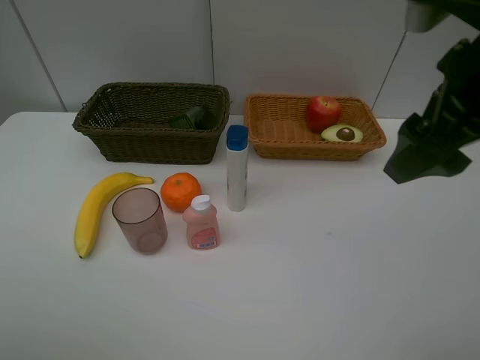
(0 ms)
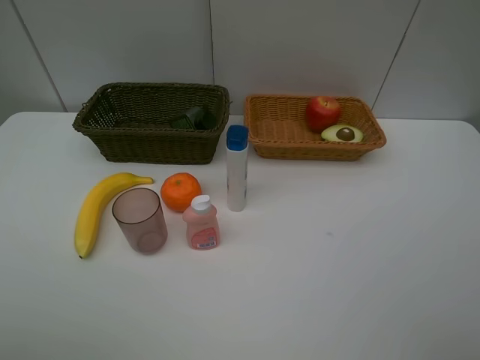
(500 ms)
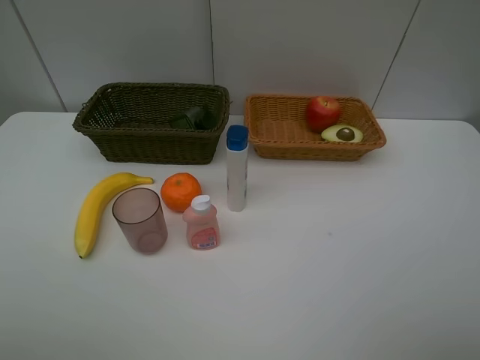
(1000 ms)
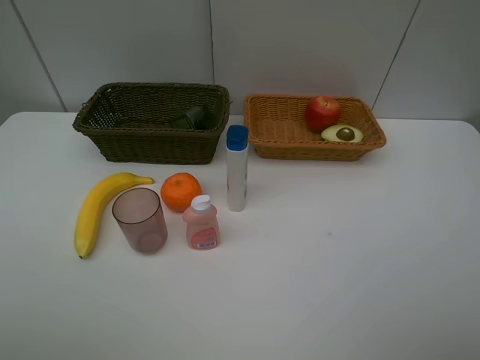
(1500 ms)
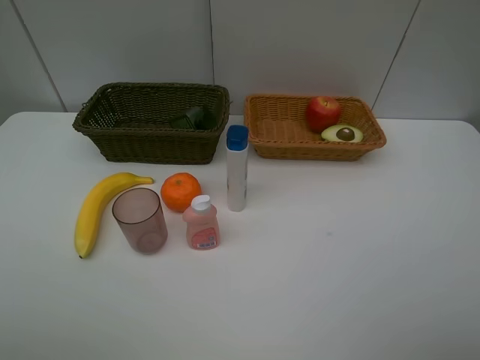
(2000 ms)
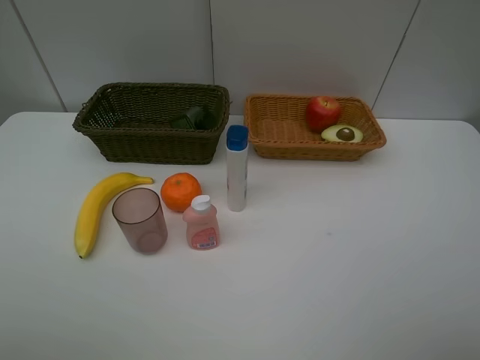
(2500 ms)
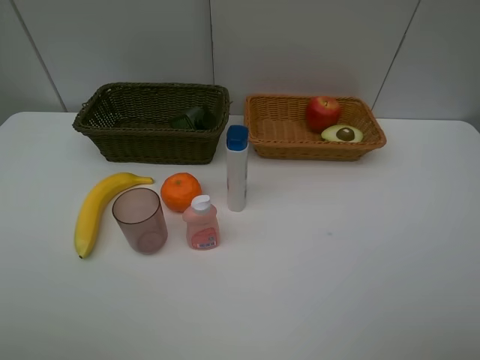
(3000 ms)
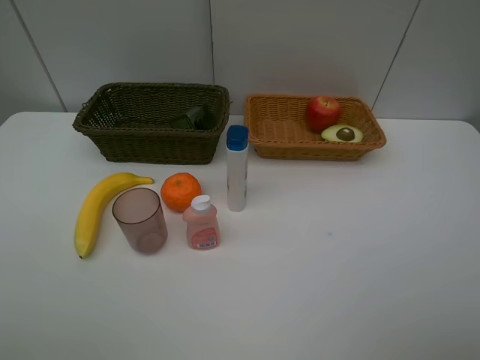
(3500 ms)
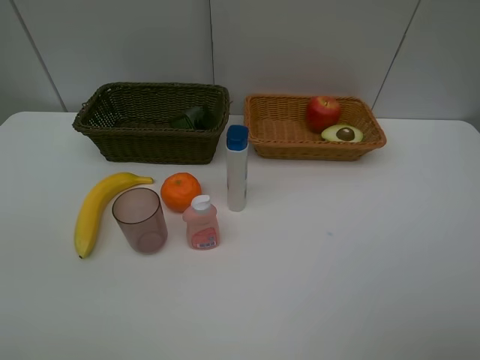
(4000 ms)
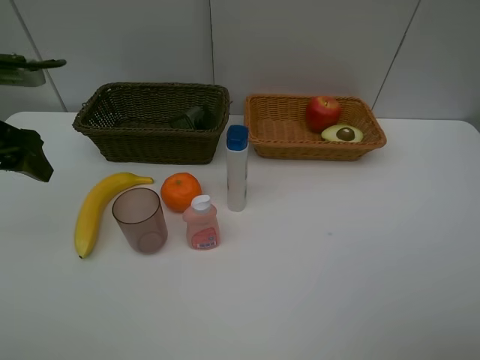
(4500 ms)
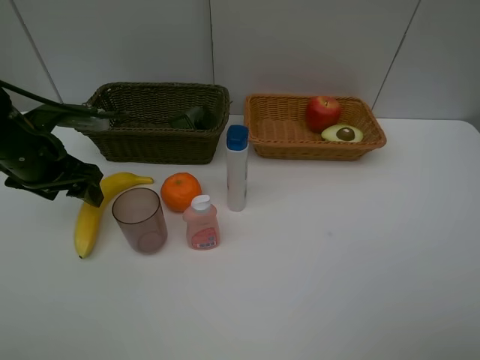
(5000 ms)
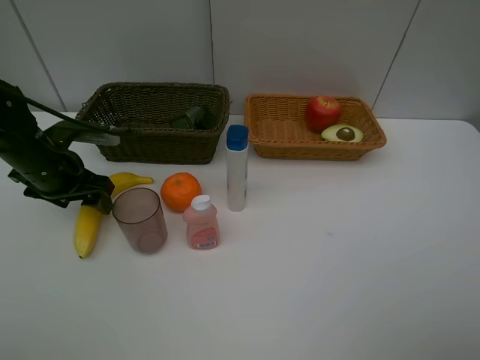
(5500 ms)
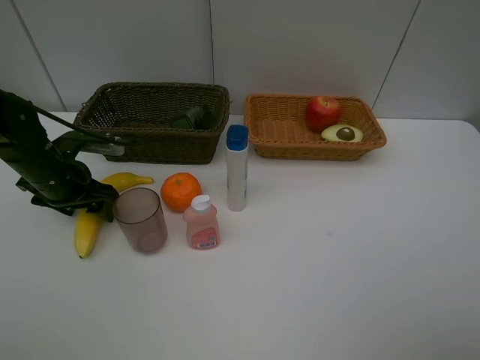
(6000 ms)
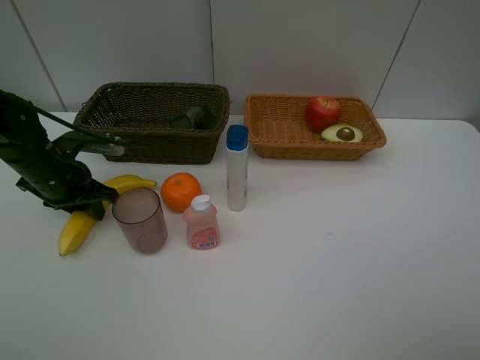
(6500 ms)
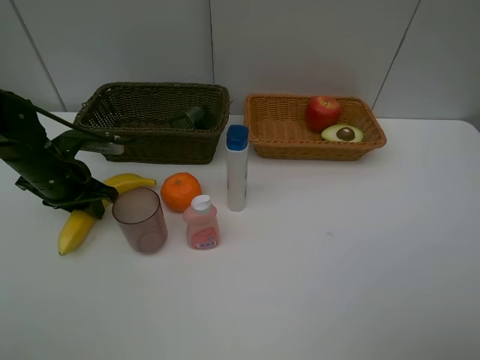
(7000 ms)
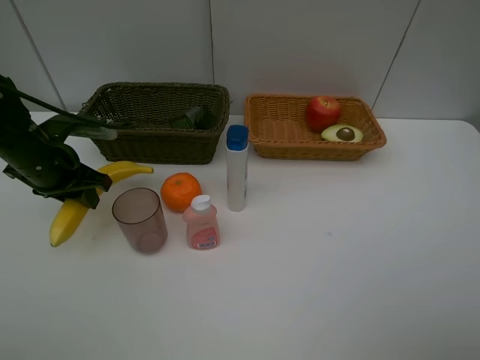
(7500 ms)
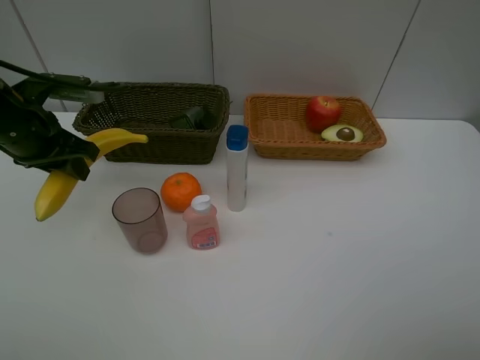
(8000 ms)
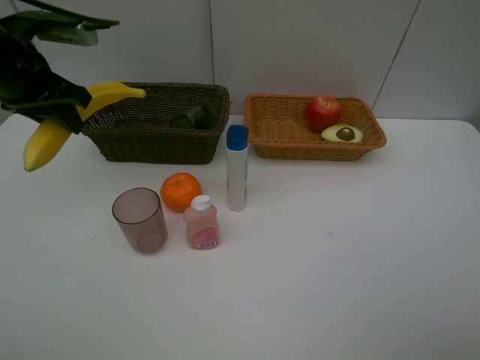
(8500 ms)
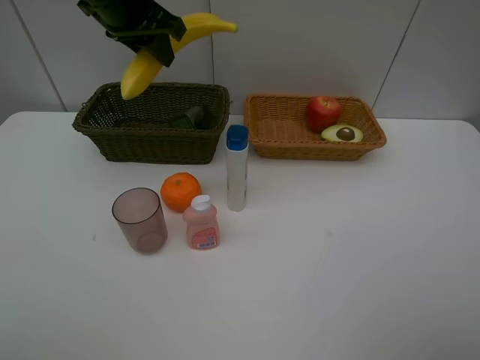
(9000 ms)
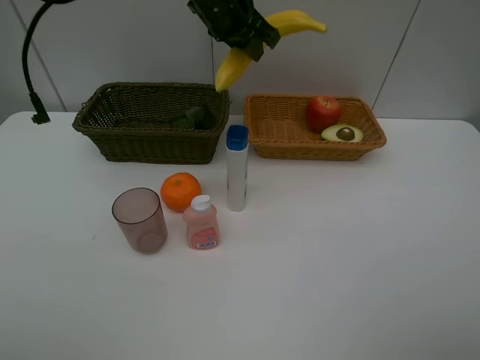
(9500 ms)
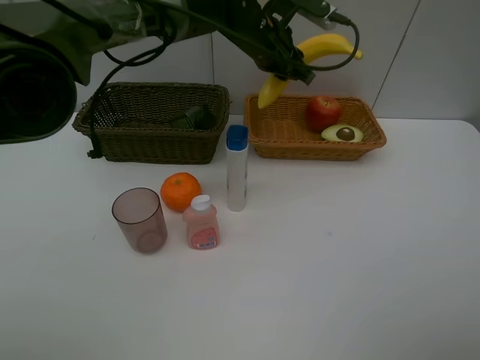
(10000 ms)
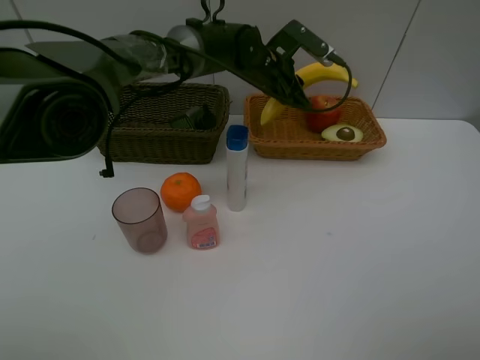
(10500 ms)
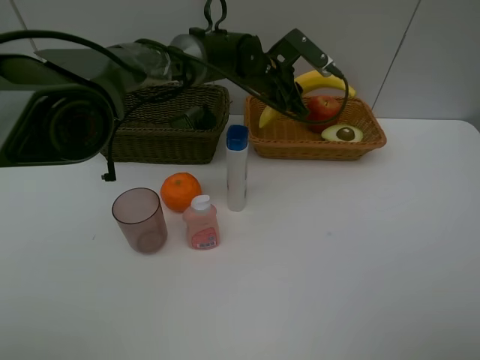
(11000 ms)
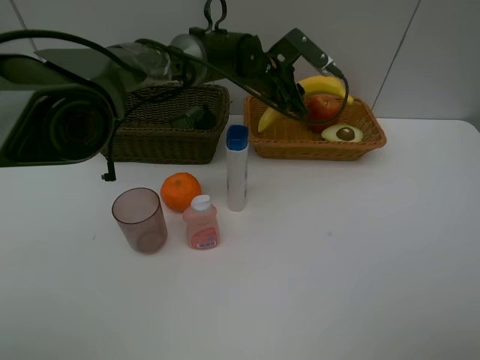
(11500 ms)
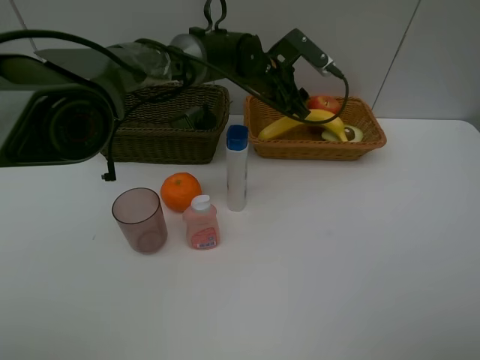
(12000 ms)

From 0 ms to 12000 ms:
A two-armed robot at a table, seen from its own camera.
Task of the whole recording: Place multiple objects separately in different baskets.
Step, from 0 ms to 7500 ms: Pick up banana with left gripper.
From 0 ms to 2000 ms: The right gripper is displaced backward and to the right by roughly 20 cm.
From 4000 ms to 6000 ms: The left gripper travels downward and forward by approximately 25 cm.
From 6000 ms to 8000 ms: The left gripper is displaced upward by some 10 cm, and closes its fingers.
From 8000 ms to 10000 ms: The left gripper is displaced to the right and forward by some 35 cm.
From 10000 ms to 12000 ms: The left gripper moves downward, roughly 5 cm, and opens its fingers.

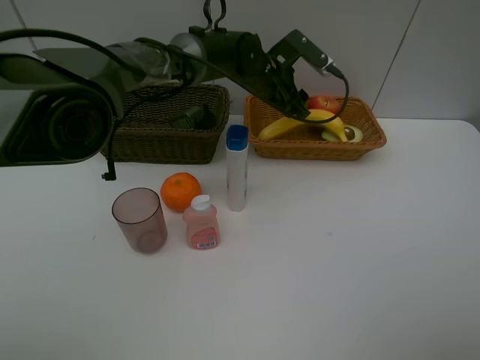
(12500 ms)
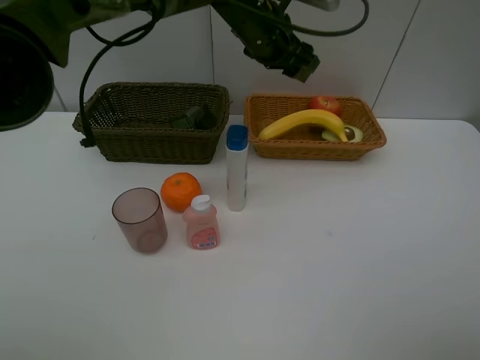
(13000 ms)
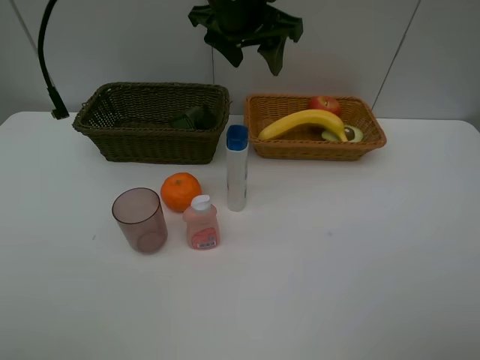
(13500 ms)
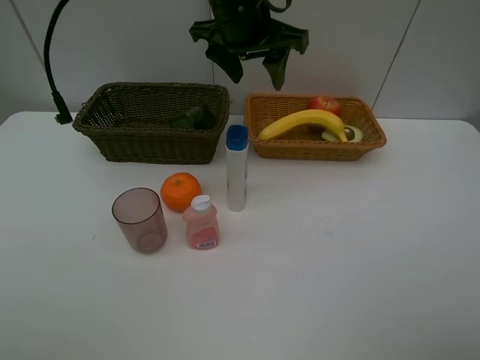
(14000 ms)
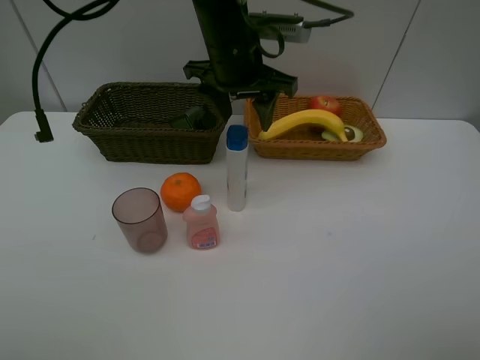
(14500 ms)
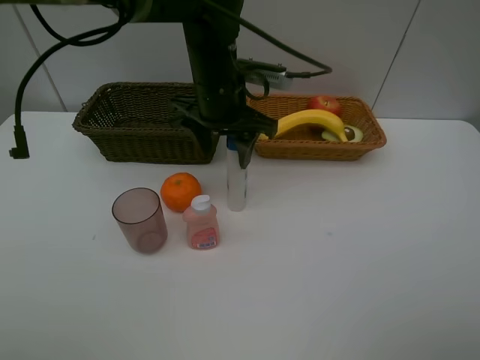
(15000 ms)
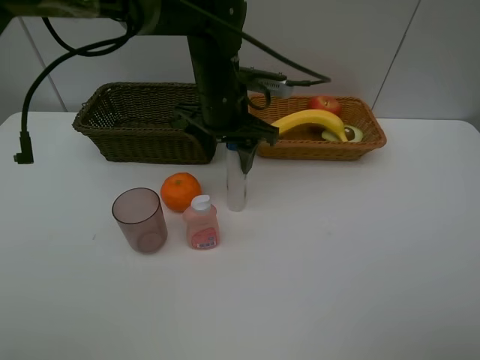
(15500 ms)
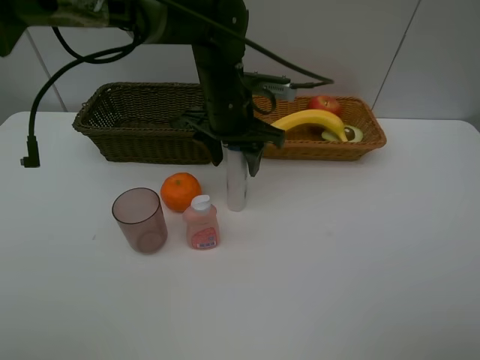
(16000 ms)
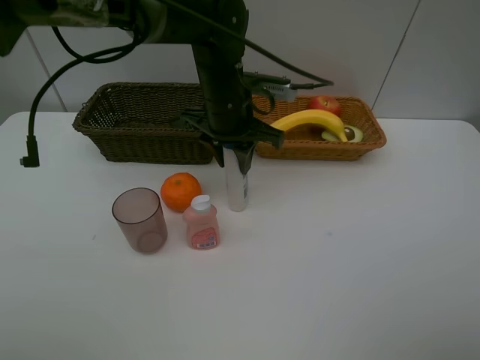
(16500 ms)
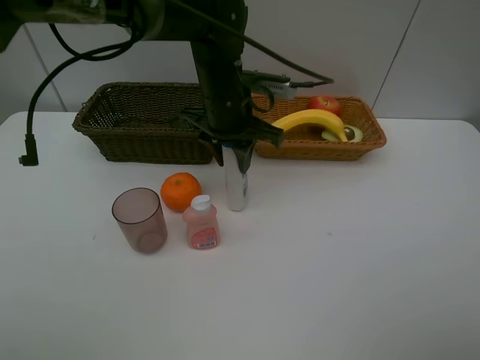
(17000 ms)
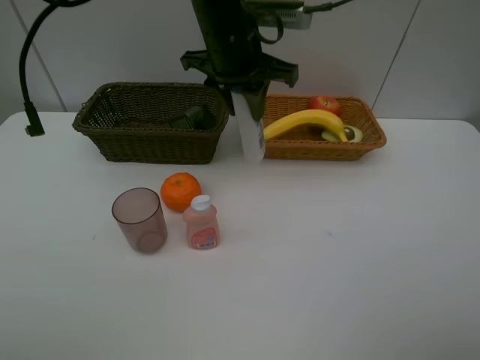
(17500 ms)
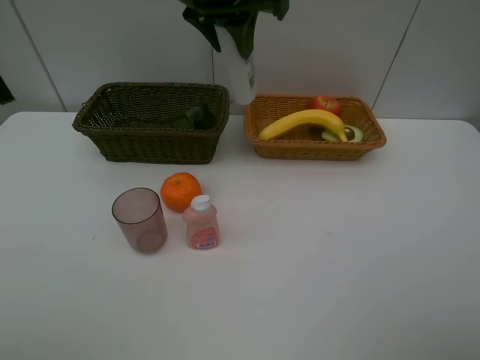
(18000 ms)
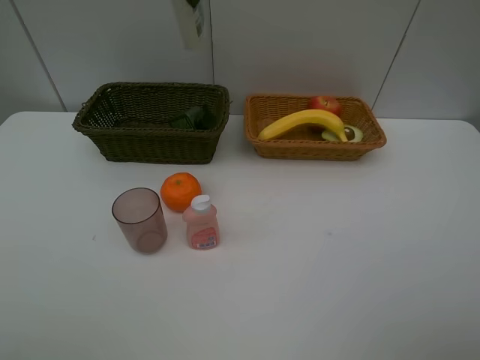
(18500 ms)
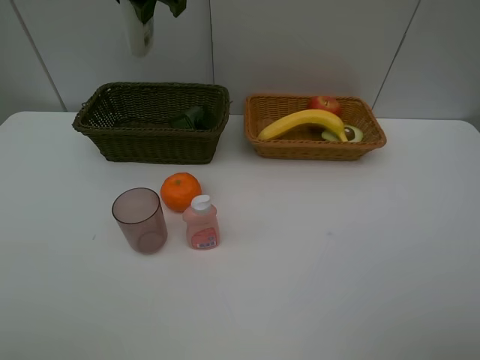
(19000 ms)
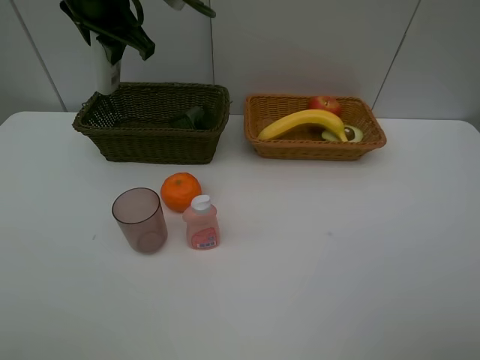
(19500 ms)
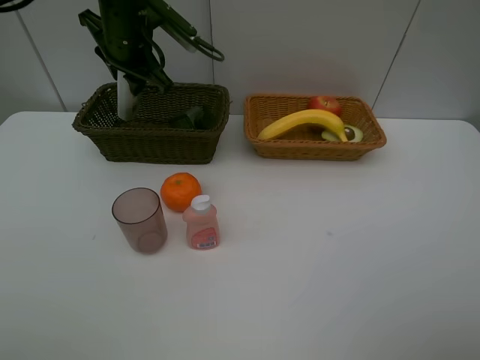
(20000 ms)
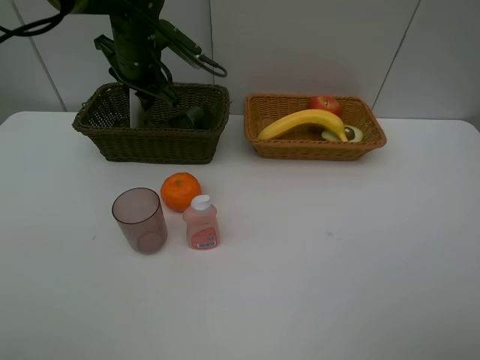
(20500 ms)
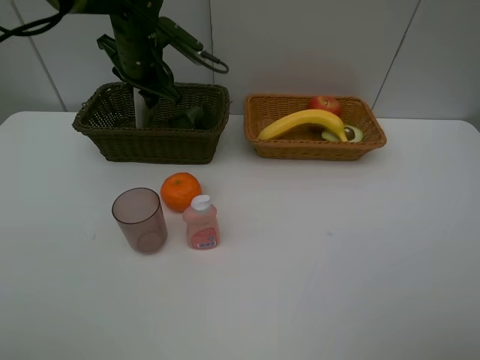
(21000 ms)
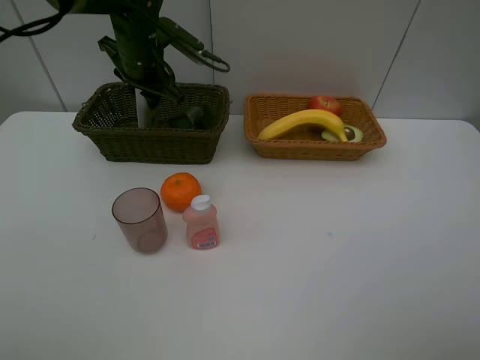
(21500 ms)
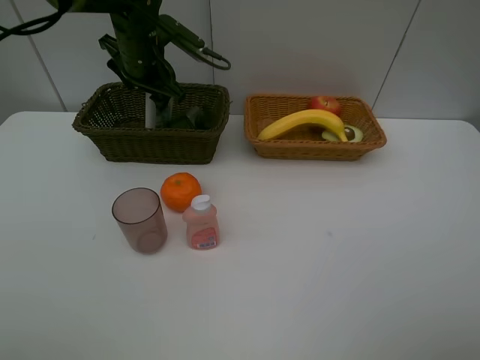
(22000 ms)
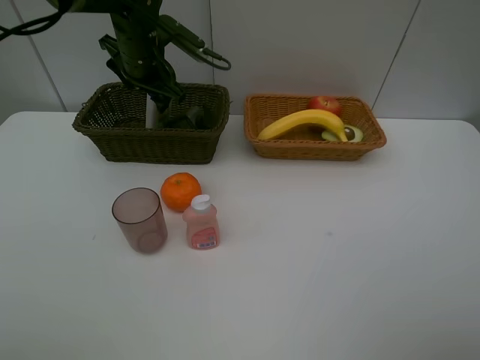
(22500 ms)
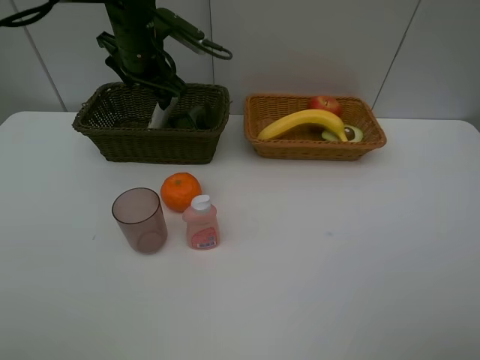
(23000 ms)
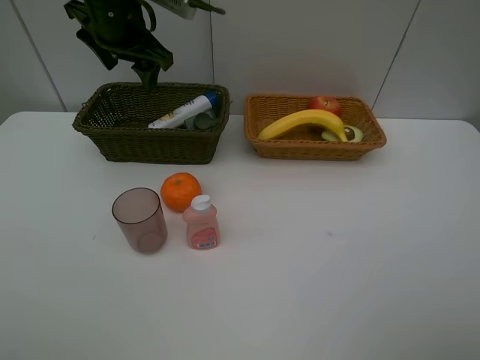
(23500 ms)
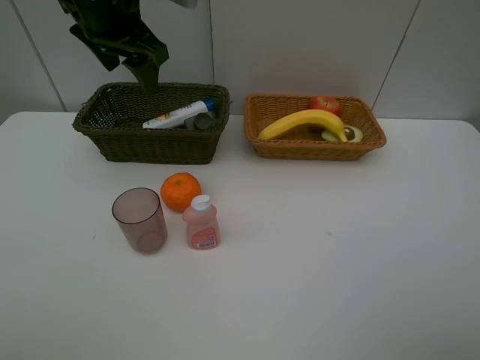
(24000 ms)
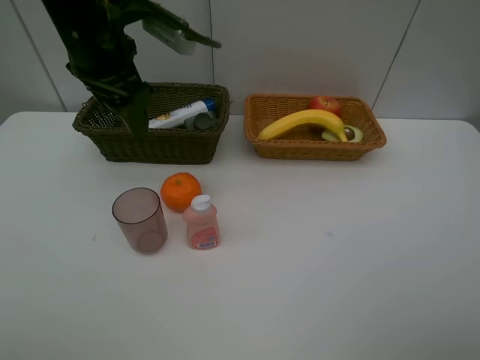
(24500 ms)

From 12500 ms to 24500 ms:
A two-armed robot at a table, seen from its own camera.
Task of the whole recording: Place multiple objects separately in different baskets.
Step, from 12500 ms to 17000 ms: Pick up the shampoo with left gripper.
Step, from 17500 ms to 23000 ms: Place the shampoo in the dark basket with left gripper.
From 12500 ms to 14500 ms: The left gripper moves backward and upward, some 15 cm.
From 14500 ms to 16500 ms: The left gripper heads downward, covering roughly 5 cm, and closes up.
From 16500 ms to 18500 ms: The left gripper moves upward, about 20 cm.
From 18500 ms to 20500 ms: The left gripper goes about 20 cm downward and forward.
From 20500 ms to 22500 ms: The left gripper opens.
From 22500 ms to 24500 ms: The left gripper shifts roughly 15 cm backward and upward.

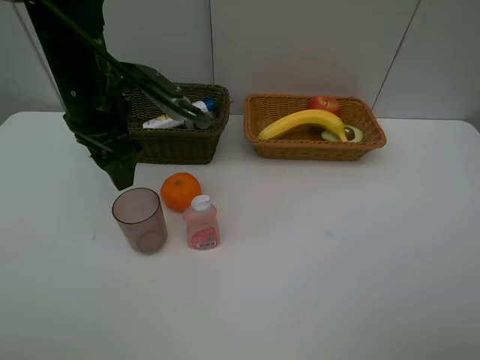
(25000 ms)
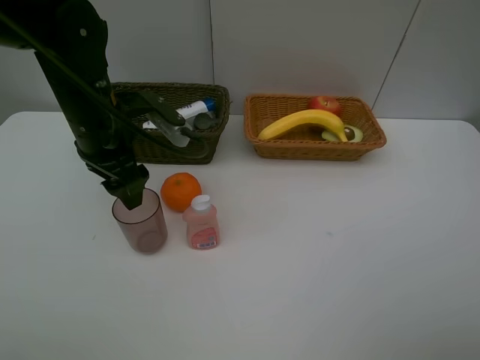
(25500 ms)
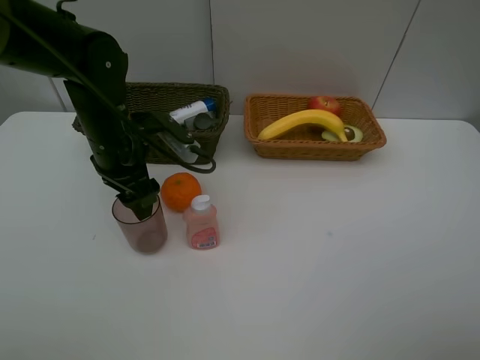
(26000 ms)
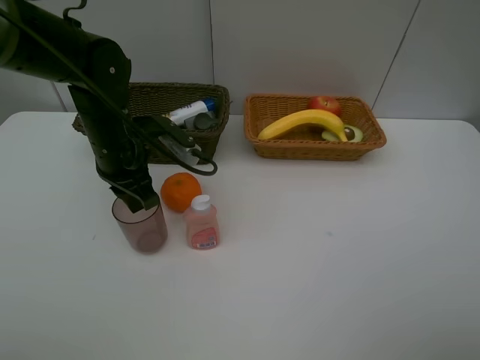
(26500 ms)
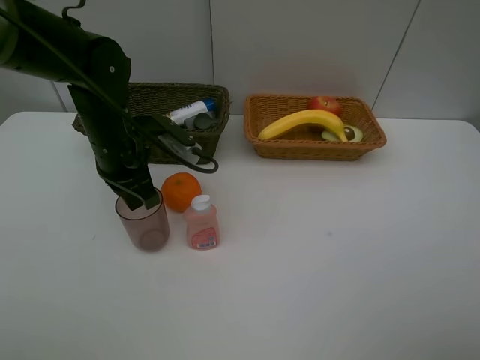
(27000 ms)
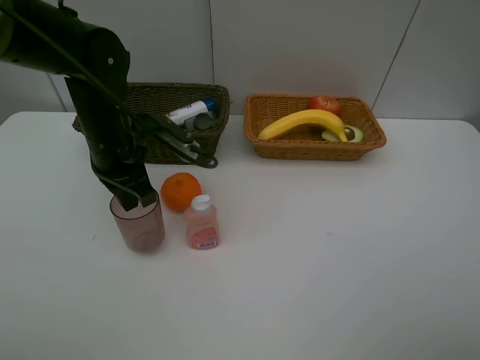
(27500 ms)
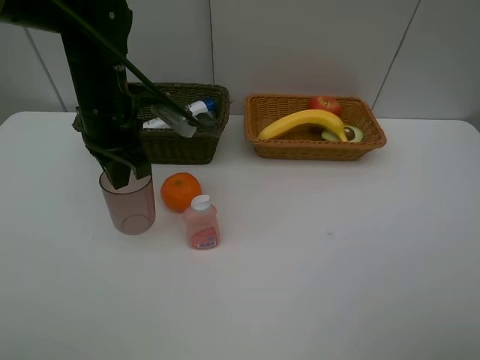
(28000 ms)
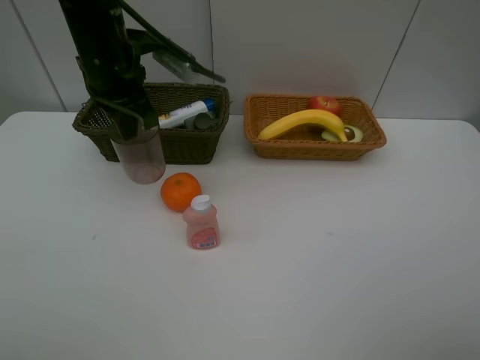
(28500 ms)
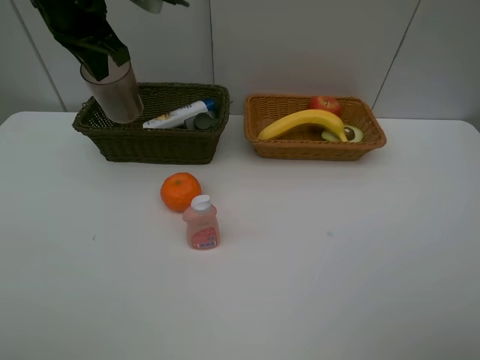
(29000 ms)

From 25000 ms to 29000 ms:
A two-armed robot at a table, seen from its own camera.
Task of the whole recording: Place multiple objects separately in different baskets.
Step, from 25000 ms to 27500 ms: Pick up the red cup with left gripper.
From 25000 ms to 27000 ms: The left gripper travels downward by roughly 5 cm, and closes up.
From 27000 ms to 29000 ms: The left gripper shifts some 15 cm upward and forward.
